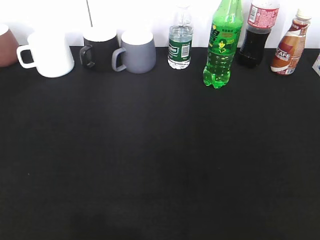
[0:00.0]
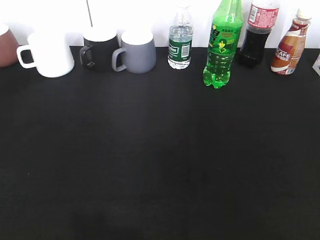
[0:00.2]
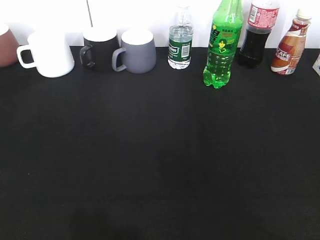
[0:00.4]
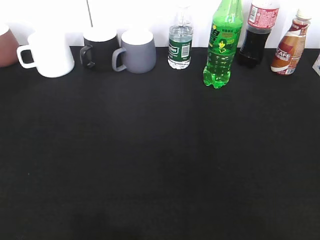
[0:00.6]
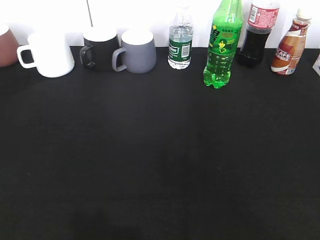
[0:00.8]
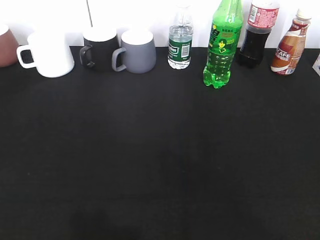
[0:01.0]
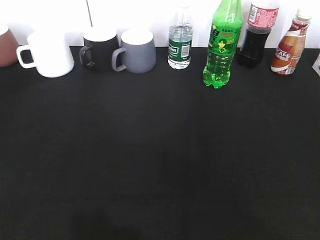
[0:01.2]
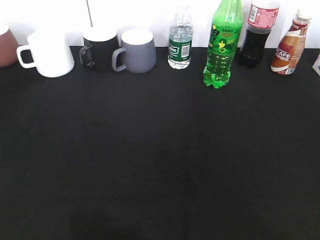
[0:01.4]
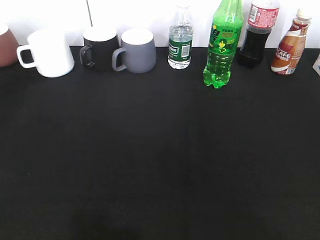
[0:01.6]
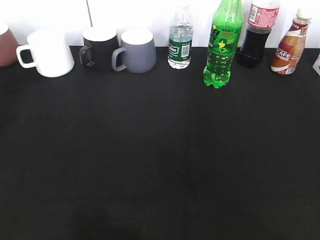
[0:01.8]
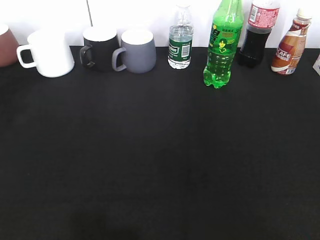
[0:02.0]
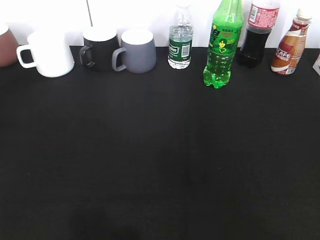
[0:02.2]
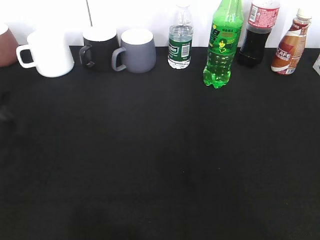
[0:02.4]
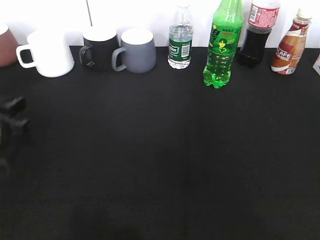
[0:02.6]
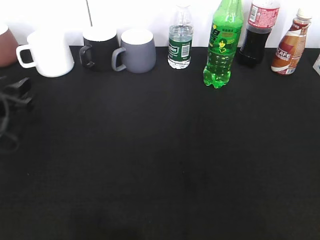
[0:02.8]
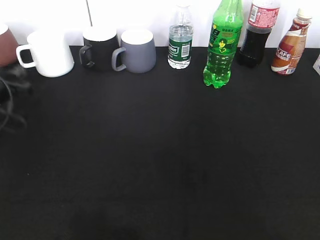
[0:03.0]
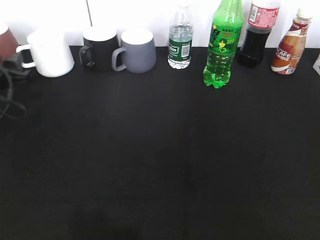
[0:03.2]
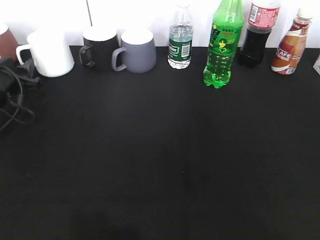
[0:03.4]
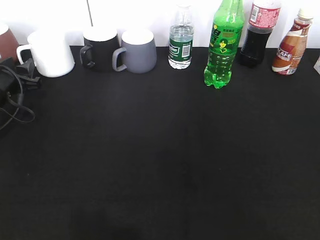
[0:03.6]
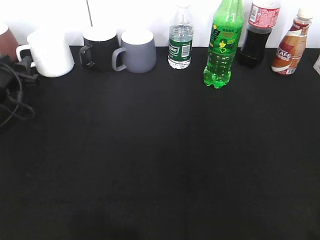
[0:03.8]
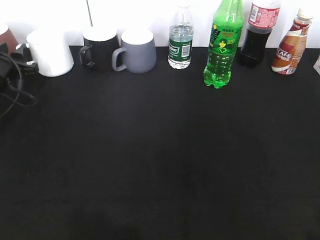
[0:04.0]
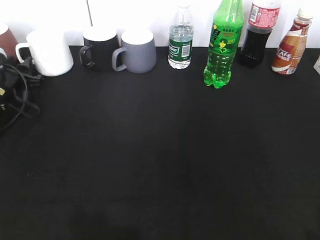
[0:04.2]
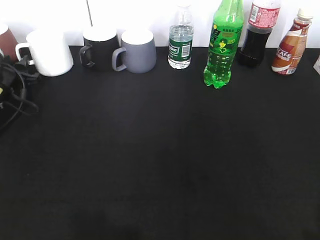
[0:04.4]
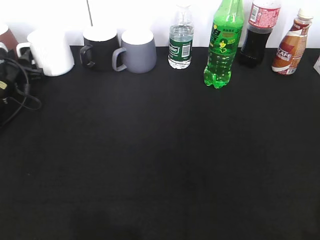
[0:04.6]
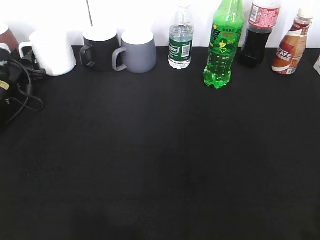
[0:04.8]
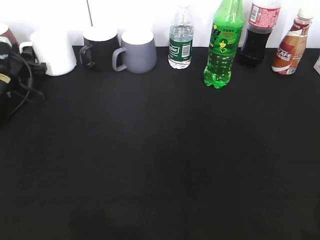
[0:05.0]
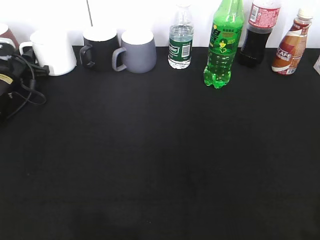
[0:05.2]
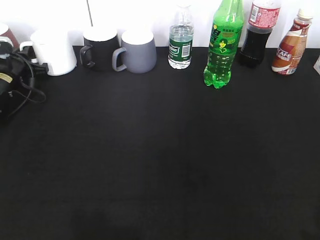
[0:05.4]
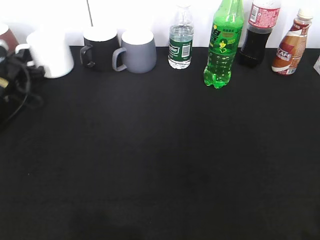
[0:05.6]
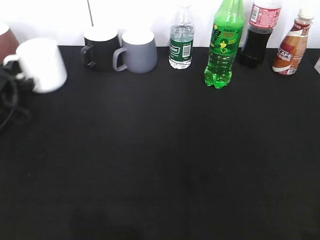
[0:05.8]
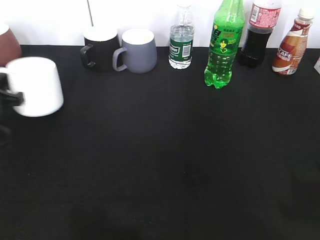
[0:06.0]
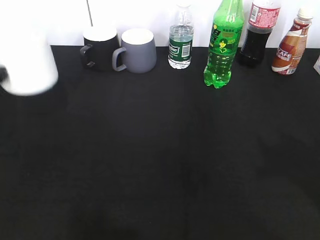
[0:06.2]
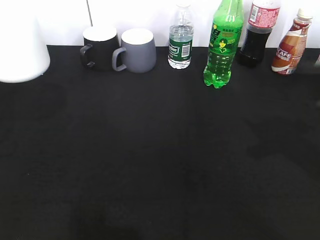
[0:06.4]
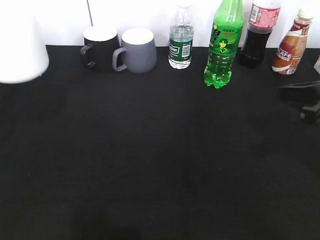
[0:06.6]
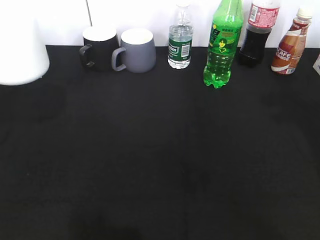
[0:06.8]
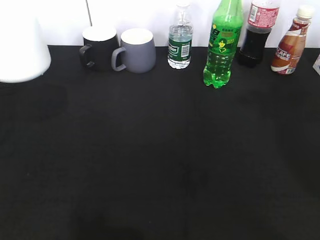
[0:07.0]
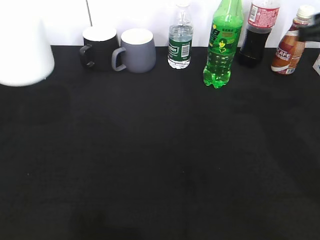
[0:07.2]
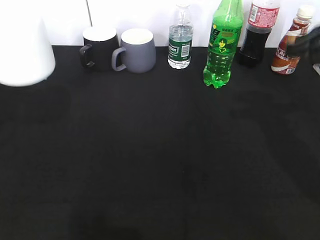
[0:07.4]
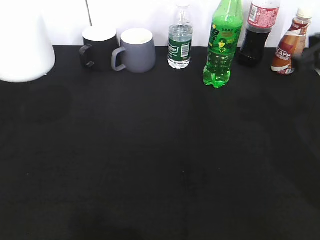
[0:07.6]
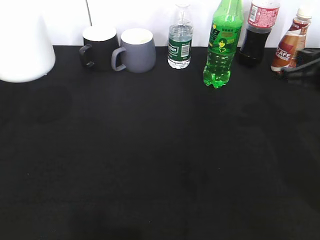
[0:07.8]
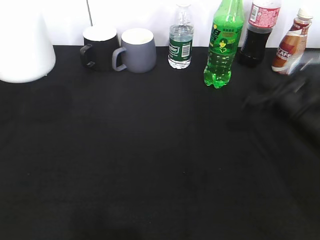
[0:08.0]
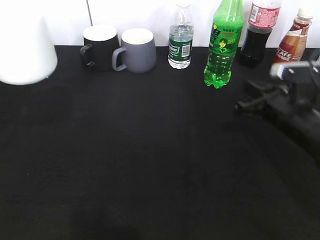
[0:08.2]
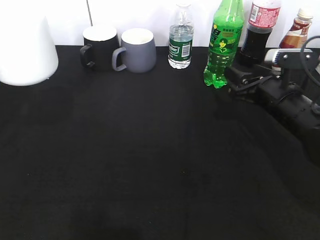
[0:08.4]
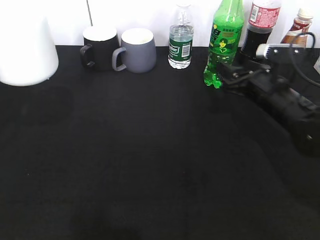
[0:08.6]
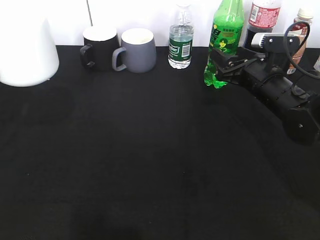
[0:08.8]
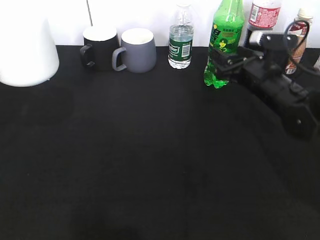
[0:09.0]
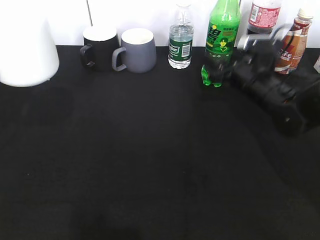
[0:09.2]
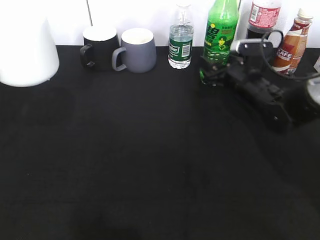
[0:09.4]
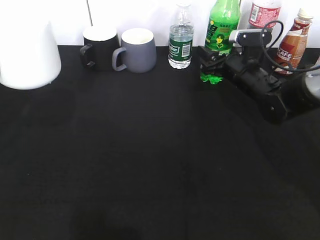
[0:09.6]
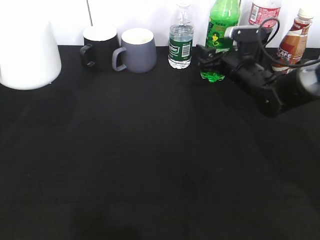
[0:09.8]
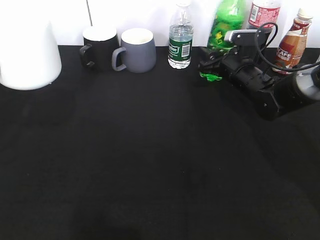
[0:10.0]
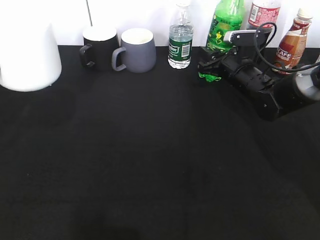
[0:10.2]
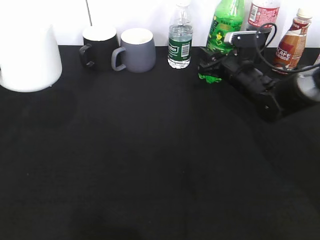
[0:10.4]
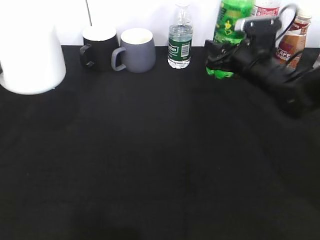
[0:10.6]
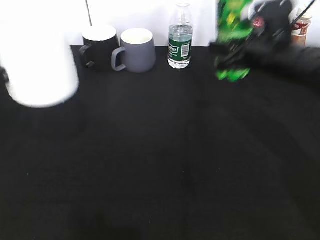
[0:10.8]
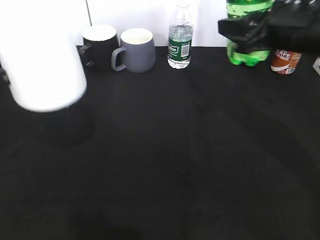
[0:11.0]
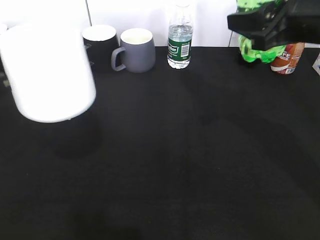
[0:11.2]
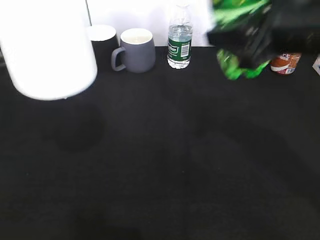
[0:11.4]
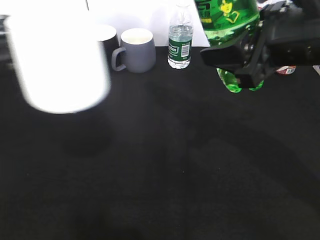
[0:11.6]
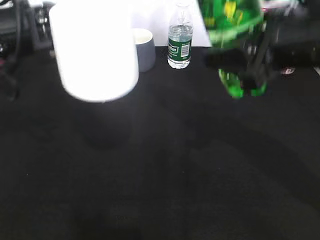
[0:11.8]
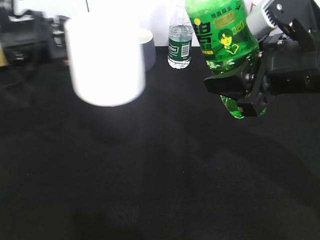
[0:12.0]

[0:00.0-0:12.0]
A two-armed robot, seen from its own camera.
Step, 0:00.0 to 0:05.6: Grasp the white cup with left gripper.
Step, 0:05.8 to 0:06.6: Lift the white cup with left gripper.
Step, 0:07.0 to 0:10.4: Grasp the bottle with sprite with right gripper.
0:01.6 to 0:03.0: The left gripper heads downward and forward, covering about 30 cm, and closes, then opens again.
0:03.0 to 0:04.4: The left gripper heads forward, covering roughly 5 cm.
0:04.4 to 0:06.0: The right gripper travels forward by roughly 5 cm, while the left gripper heads backward, covering about 10 cm, and closes its fingers.
0:06.0 to 0:07.6: The right gripper goes about 20 cm forward, and closes, while the left gripper shifts some 10 cm upward.
0:07.6 to 0:09.0: The right gripper goes some 15 cm downward, forward and to the left, and opens.
0:09.0 to 0:10.4: The right gripper moves forward, about 5 cm.
0:10.4 to 0:12.0: The right gripper travels backward and upward by some 25 cm, while the left gripper shifts about 10 cm to the right and forward.

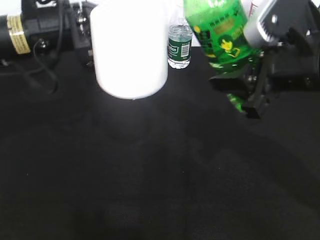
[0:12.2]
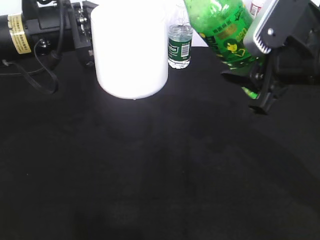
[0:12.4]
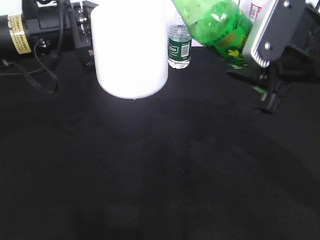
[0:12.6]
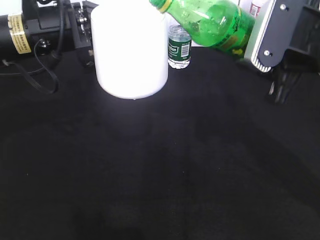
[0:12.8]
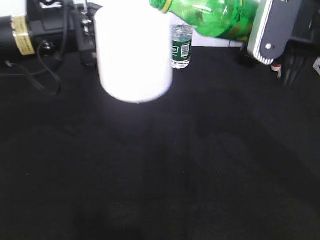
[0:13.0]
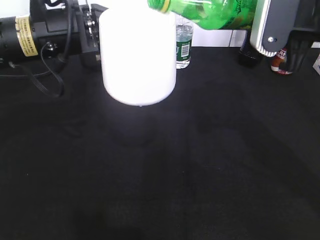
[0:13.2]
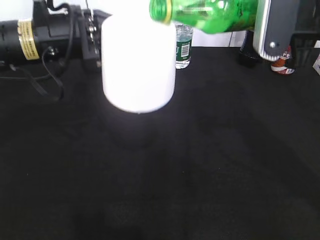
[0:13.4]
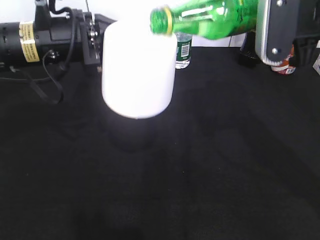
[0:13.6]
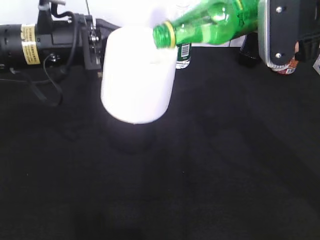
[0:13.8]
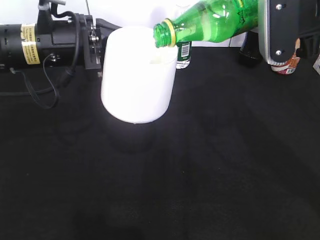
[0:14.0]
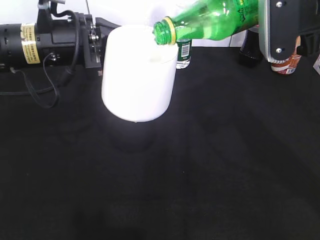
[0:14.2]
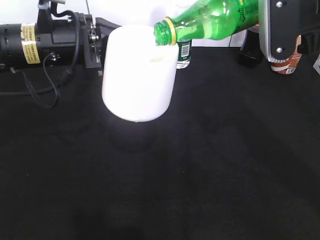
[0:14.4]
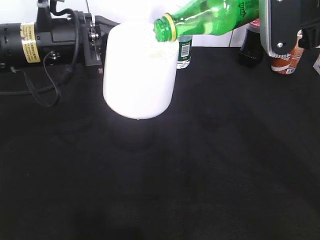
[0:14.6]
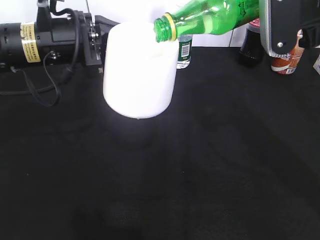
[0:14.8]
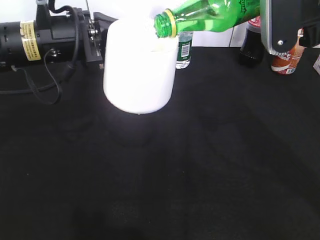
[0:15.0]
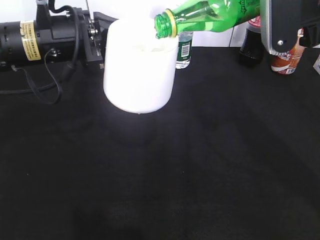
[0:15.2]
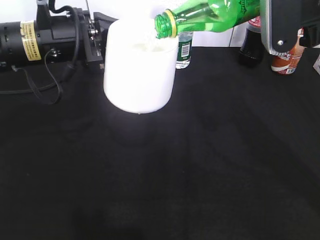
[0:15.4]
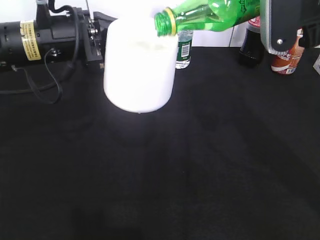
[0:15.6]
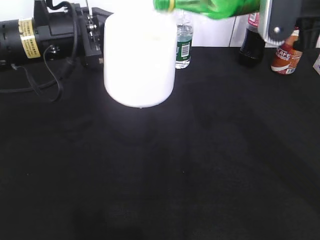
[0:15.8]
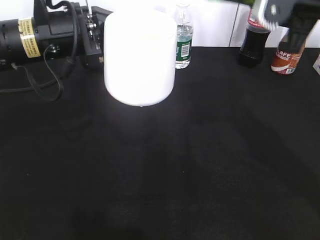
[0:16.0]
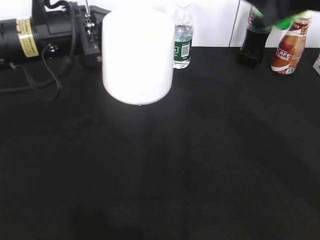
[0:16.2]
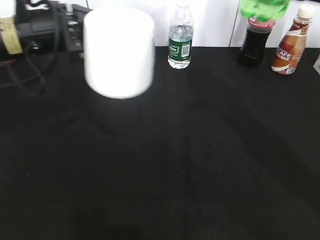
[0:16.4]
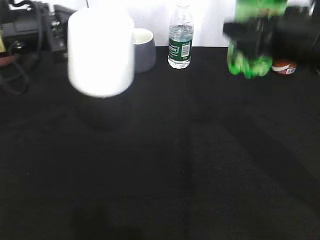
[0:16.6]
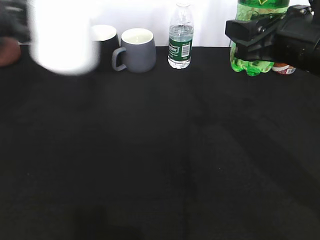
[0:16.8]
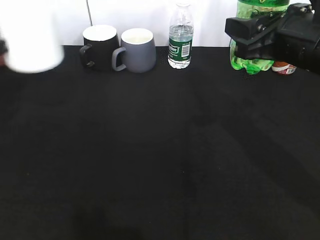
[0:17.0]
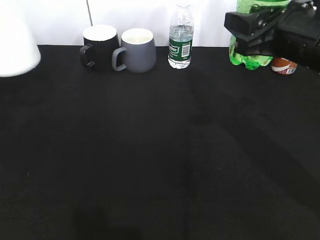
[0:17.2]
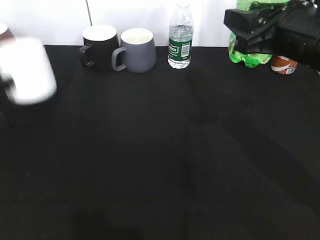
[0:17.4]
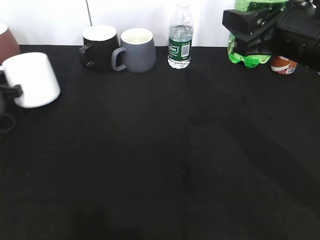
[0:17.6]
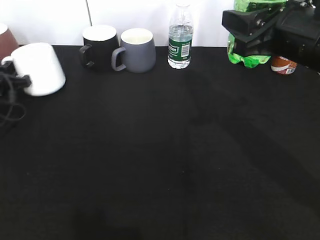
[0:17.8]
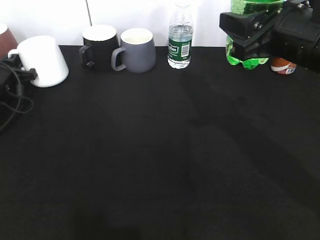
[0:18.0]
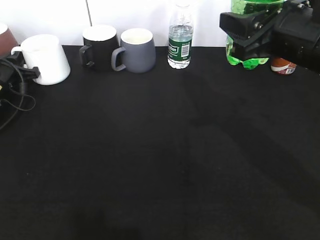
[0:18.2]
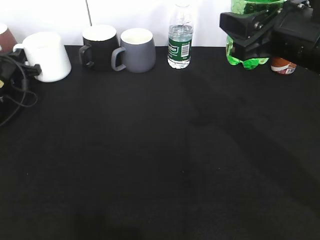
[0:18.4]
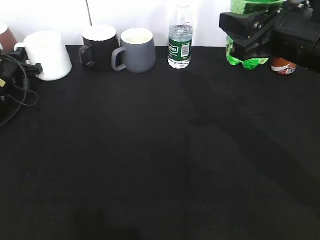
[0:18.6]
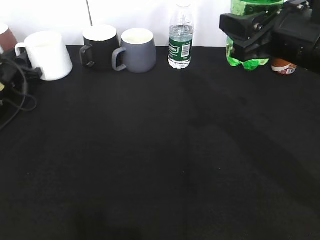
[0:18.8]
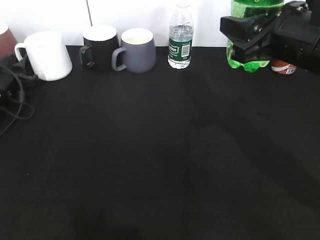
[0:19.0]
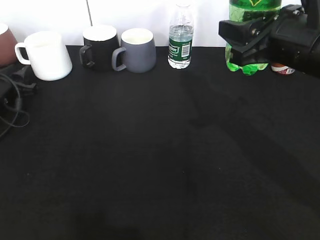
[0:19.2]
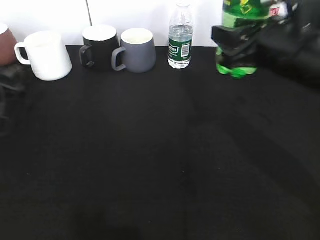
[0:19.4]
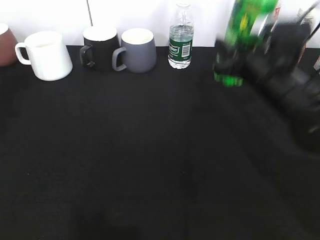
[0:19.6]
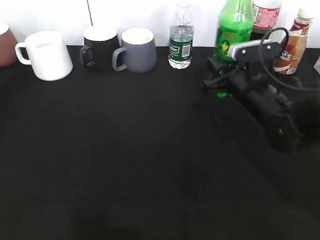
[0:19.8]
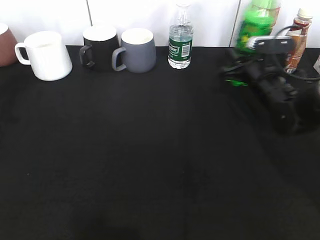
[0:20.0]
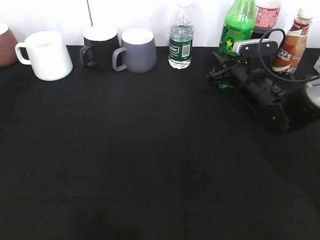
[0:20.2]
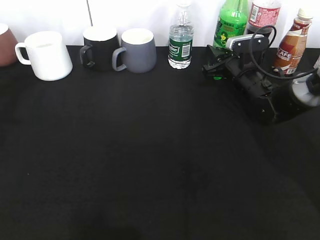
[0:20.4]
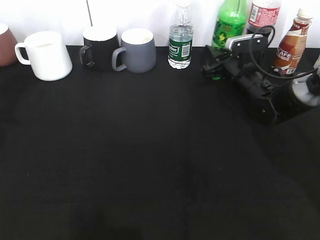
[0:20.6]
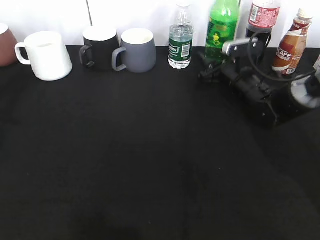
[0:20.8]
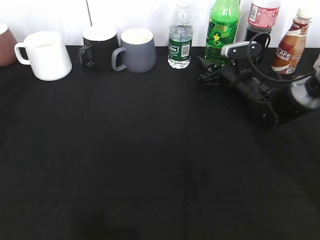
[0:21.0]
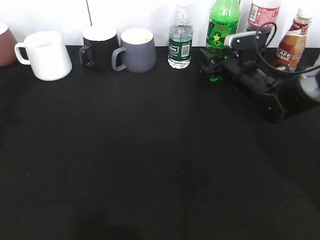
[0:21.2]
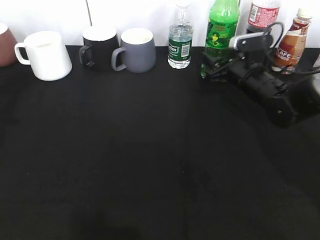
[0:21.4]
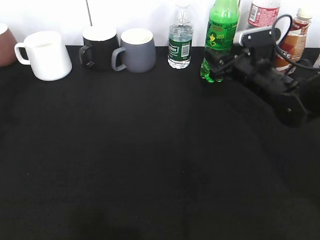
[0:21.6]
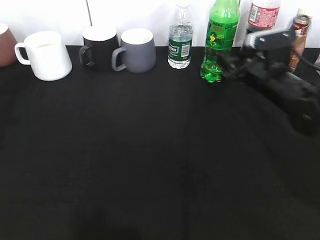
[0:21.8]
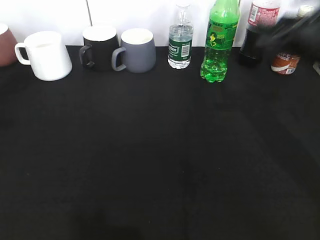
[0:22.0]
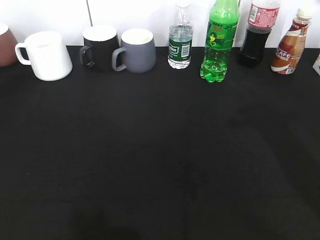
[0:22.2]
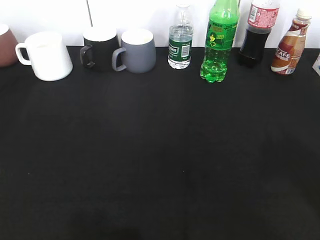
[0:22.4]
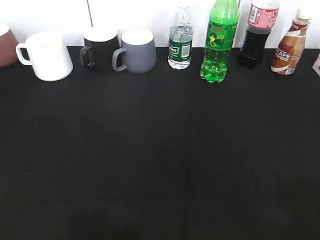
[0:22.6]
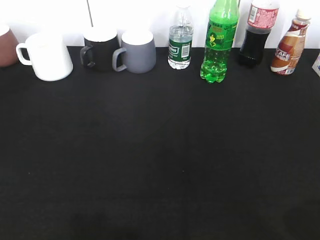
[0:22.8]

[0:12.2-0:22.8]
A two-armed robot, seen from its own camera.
Step, 0:12.2 to 0:15.6: Pour the sprite from bottle to cup with right gripper.
Step, 0:15.8 to 0:19.4: Place the white cup on the table with left gripper.
Step, 0:19.6 to 0:21.8: Place the sprite bottle on the table with right gripper.
0:12.2 to 0:13.8: The right gripper ends up roughly 5 cm from where it was.
0:13.8 to 0:15.2: The two grippers keep their place.
0:15.2 to 0:16.8: The right gripper travels downward by approximately 5 cm, while the left gripper heads to the left, covering about 15 cm.
0:16.8 to 0:18.2: The left gripper is displaced downward and forward by about 20 cm.
0:18.2 to 0:19.8: The left gripper shifts some 25 cm backward and upward, and opens its fingers; the right gripper travels downward and forward by approximately 20 cm.
0:19.8 to 0:21.2: The right gripper moves forward, roughly 5 cm.
0:21.2 to 0:22.8: The right gripper shifts some 50 cm backward and upward, and closes. The left gripper travels backward by about 25 cm.
